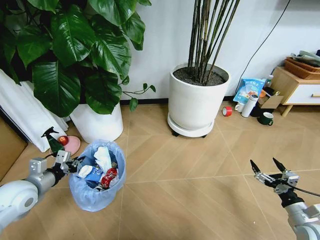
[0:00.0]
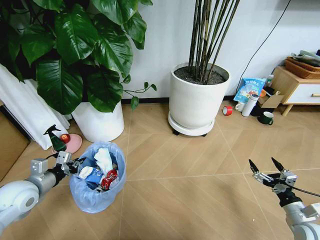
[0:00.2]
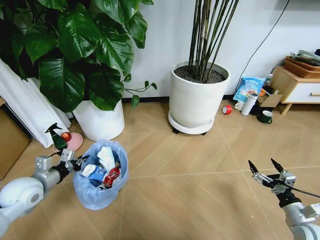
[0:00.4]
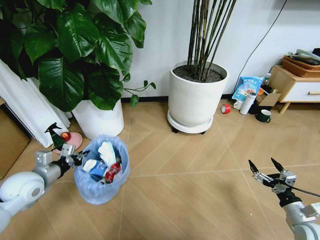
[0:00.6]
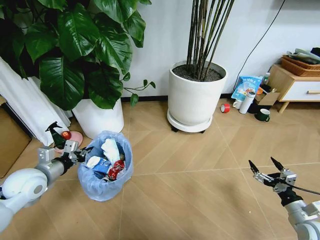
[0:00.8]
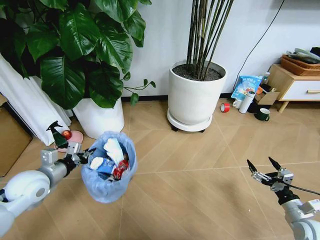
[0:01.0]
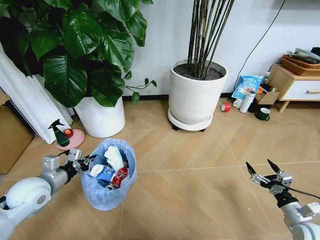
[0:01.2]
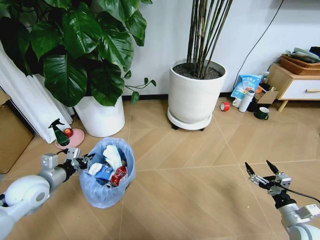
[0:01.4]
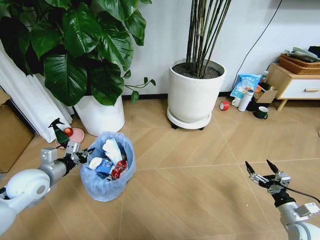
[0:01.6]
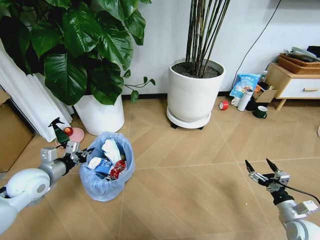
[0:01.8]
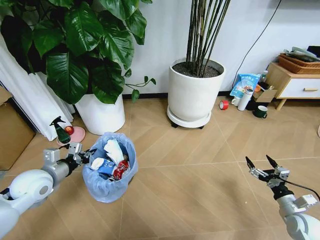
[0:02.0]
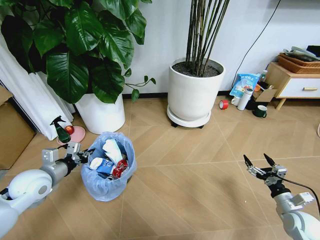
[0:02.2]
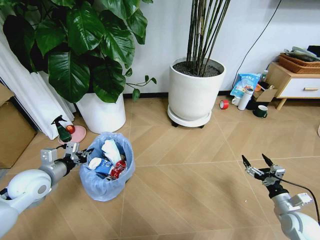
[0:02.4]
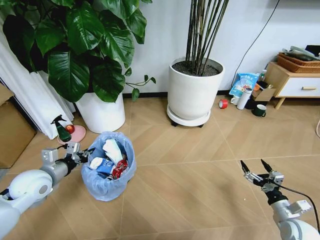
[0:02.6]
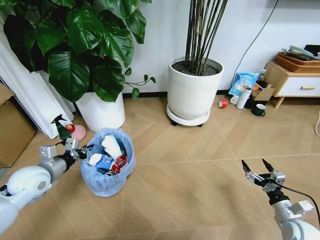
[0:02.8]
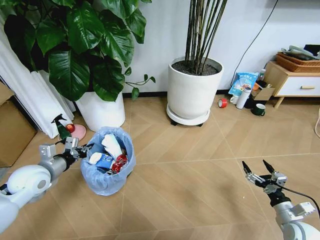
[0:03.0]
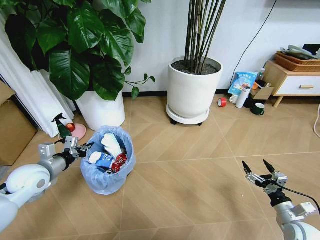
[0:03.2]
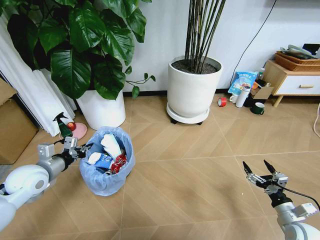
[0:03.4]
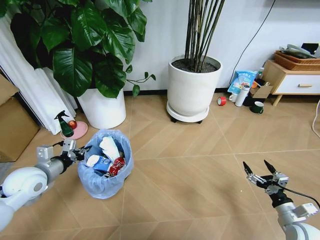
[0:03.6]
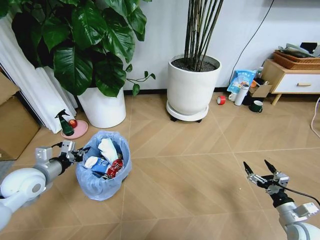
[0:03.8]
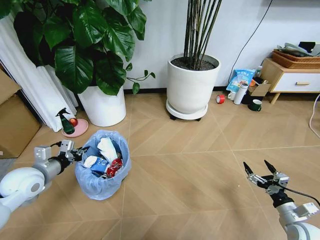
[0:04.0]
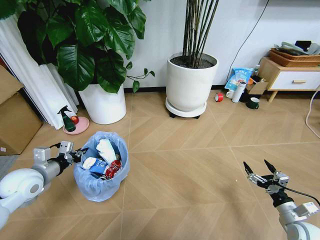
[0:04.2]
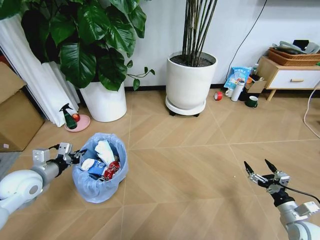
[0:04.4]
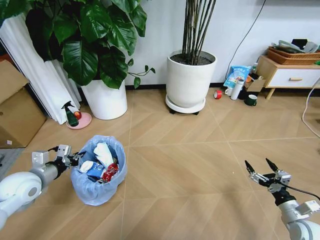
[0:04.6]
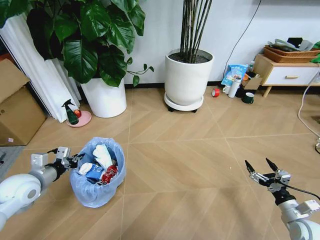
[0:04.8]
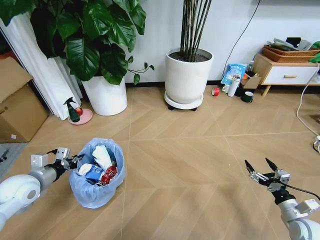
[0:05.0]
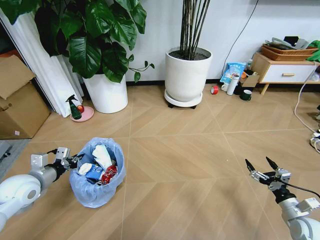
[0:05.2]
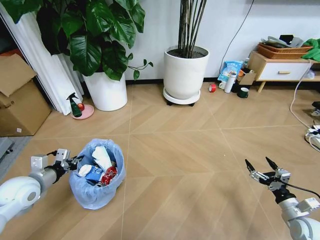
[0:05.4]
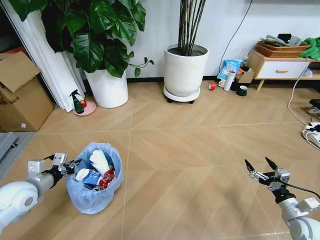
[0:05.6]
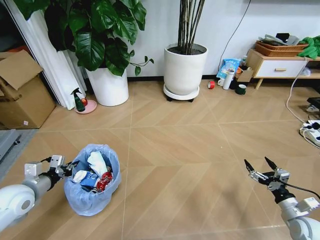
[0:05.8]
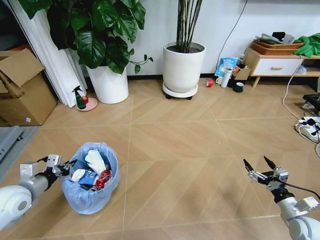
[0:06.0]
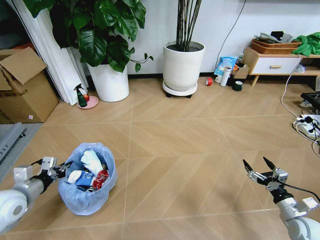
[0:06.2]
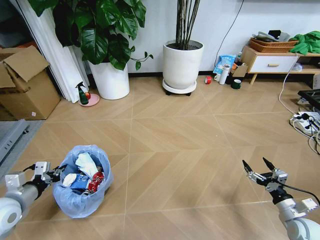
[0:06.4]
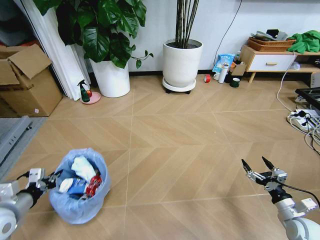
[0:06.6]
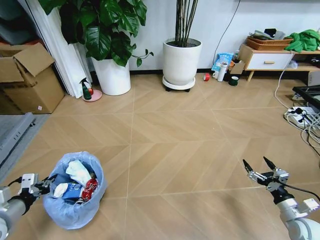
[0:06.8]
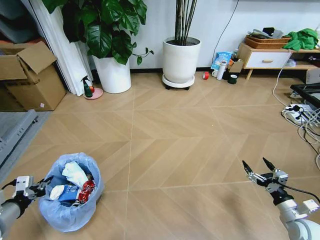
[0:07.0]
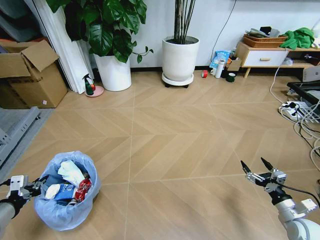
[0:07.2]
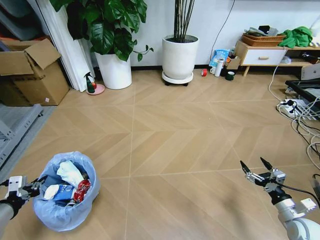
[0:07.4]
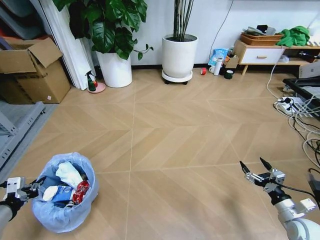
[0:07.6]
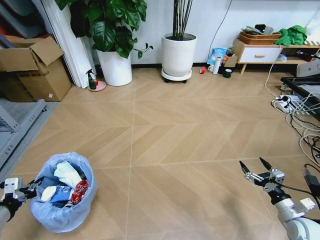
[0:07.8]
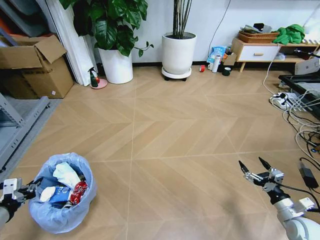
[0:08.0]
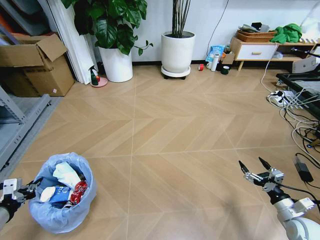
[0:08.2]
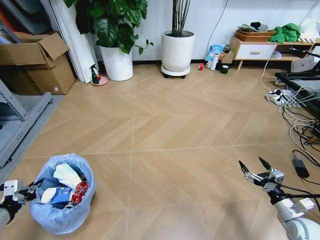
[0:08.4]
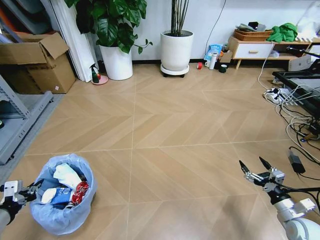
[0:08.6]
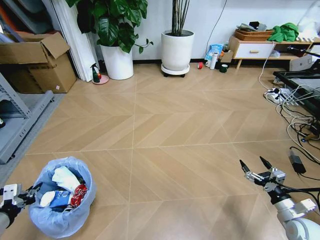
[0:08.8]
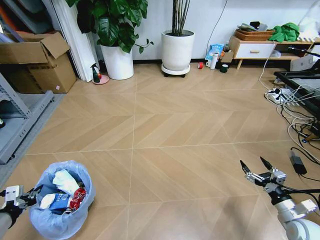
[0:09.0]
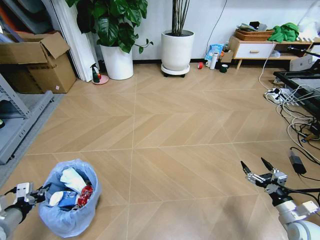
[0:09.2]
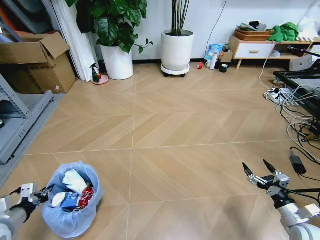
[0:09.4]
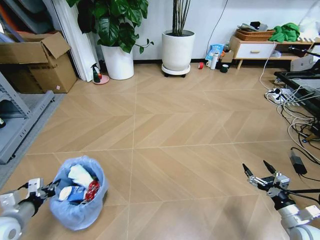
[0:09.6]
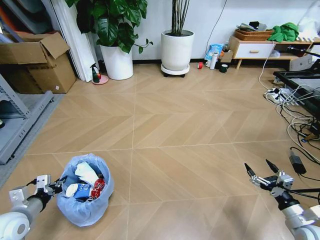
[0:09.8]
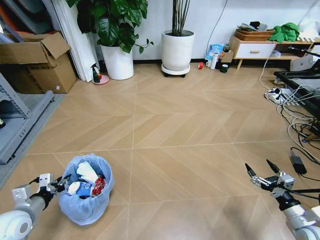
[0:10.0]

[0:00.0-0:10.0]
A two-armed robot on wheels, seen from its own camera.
Task of the whole recording: Pick up the trash bin and place the garbage on the floor into it.
0:04.2 to 0:05.8: The left gripper ends up approximately 5 cm from where it was.
0:05.8 to 0:07.2: The left gripper is displaced backward by about 10 cm.
0:08.6 to 0:10.0: The left gripper is displaced forward and downward by approximately 10 cm.

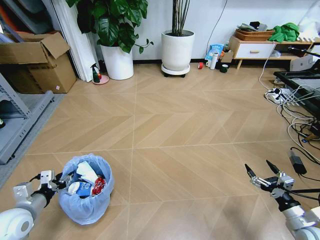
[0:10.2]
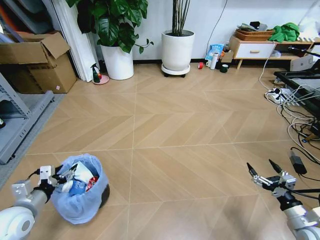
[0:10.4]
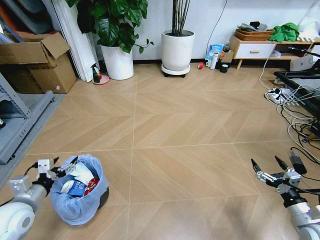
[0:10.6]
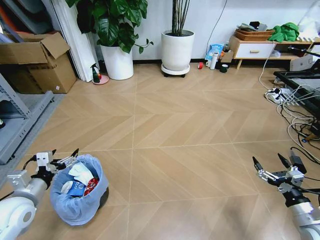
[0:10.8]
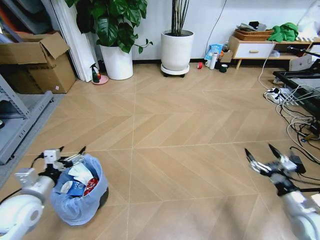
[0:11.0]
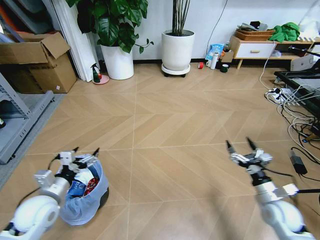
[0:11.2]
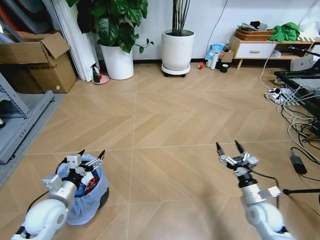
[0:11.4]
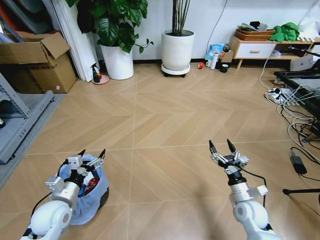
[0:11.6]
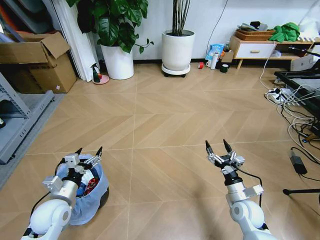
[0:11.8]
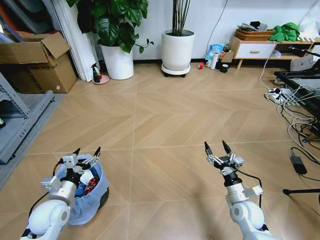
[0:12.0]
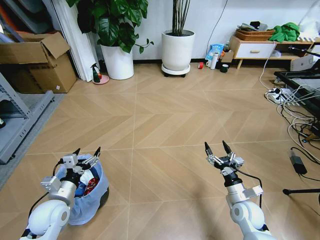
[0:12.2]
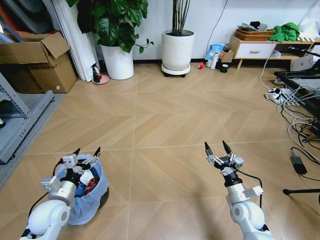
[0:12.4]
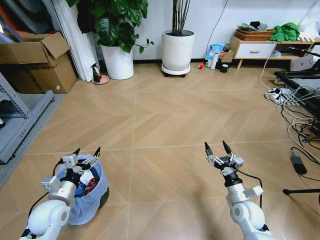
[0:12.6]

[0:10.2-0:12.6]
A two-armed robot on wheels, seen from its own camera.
Task of the whole recording: Pick up the trash bin and place the garbage on the floor into it.
0:10.2 to 0:11.4: The left gripper is displaced to the right by roughly 10 cm, and opens. The right gripper shifts approximately 15 cm to the left and forward.
0:11.4 to 0:12.6: The grippers make only small movements.
